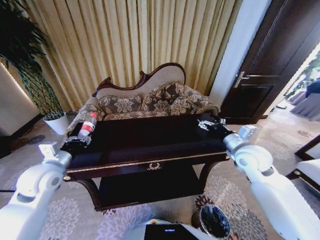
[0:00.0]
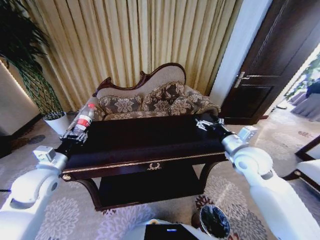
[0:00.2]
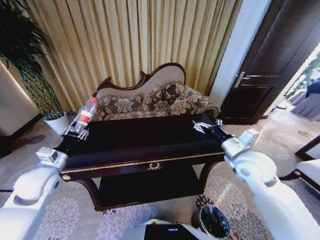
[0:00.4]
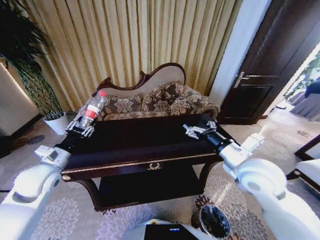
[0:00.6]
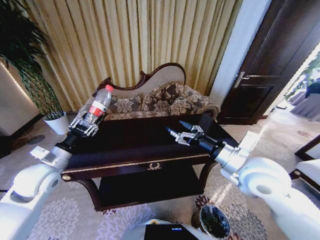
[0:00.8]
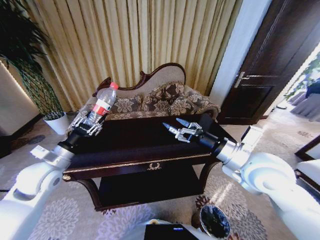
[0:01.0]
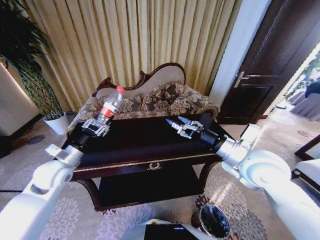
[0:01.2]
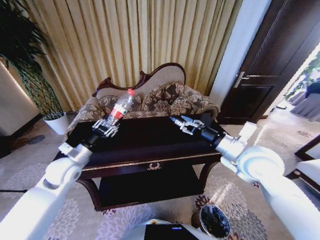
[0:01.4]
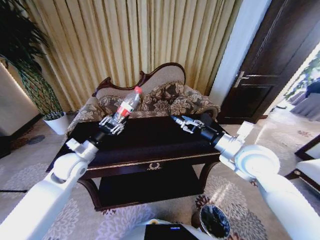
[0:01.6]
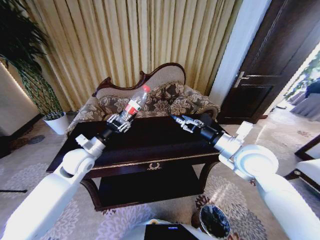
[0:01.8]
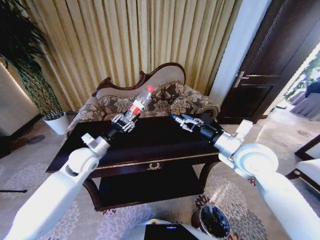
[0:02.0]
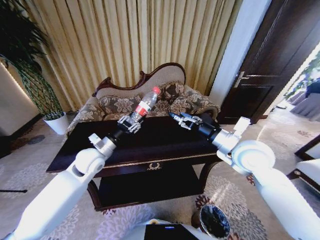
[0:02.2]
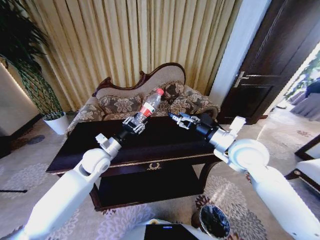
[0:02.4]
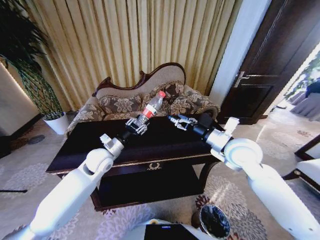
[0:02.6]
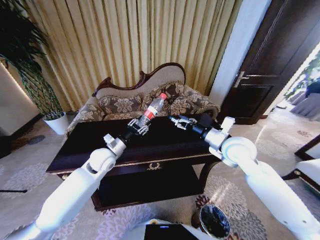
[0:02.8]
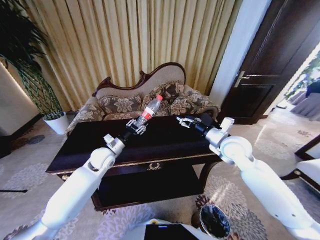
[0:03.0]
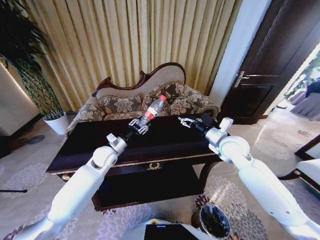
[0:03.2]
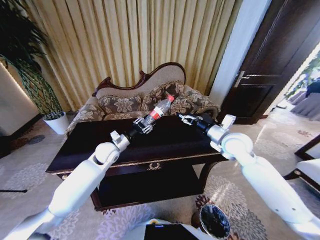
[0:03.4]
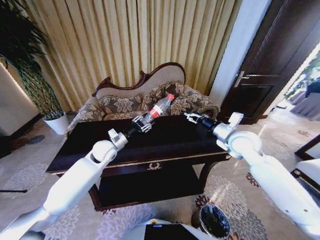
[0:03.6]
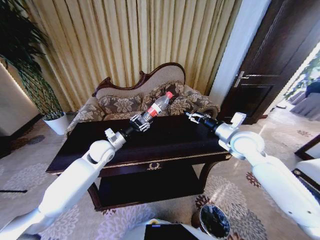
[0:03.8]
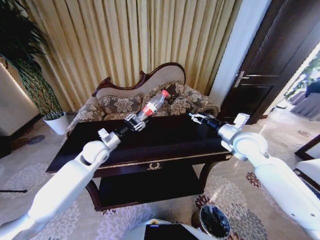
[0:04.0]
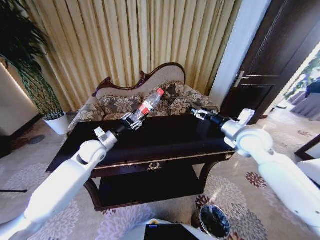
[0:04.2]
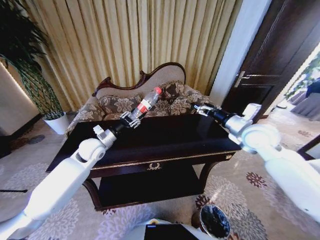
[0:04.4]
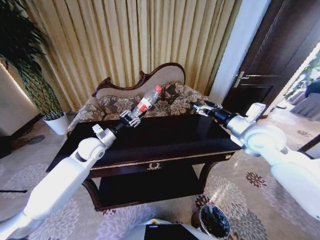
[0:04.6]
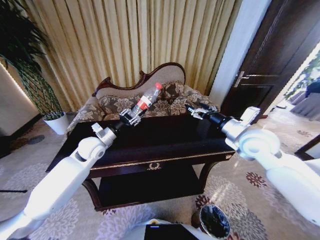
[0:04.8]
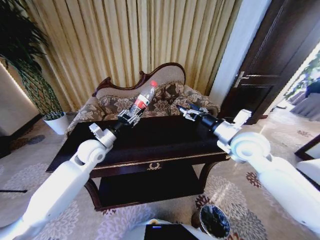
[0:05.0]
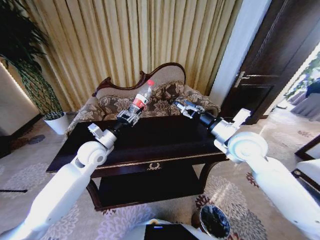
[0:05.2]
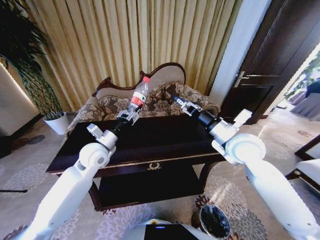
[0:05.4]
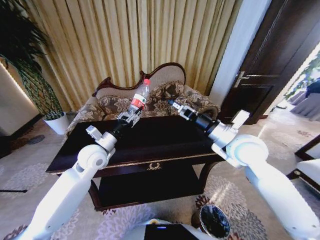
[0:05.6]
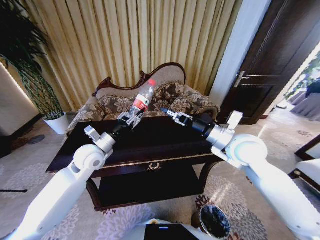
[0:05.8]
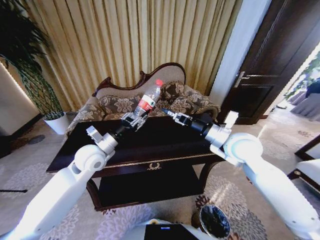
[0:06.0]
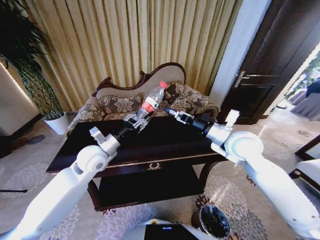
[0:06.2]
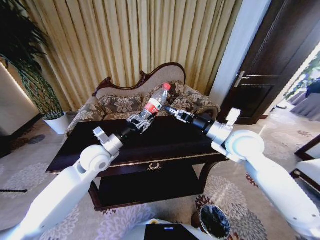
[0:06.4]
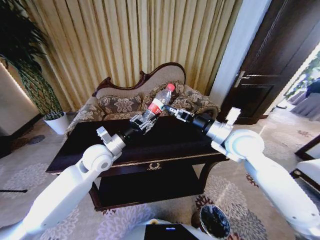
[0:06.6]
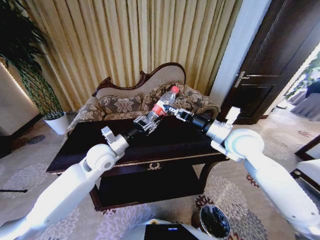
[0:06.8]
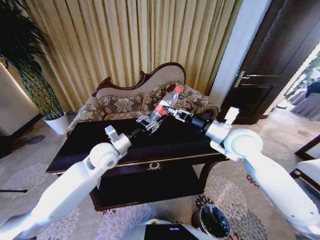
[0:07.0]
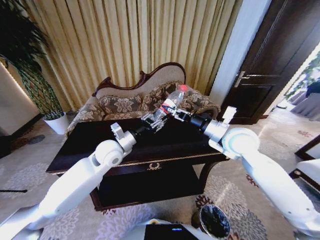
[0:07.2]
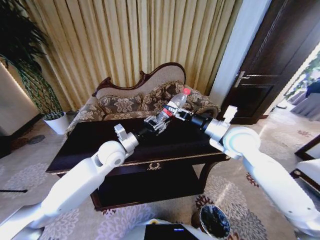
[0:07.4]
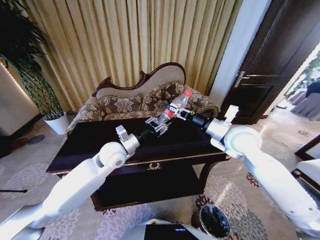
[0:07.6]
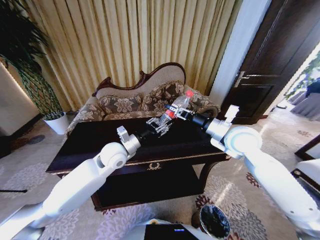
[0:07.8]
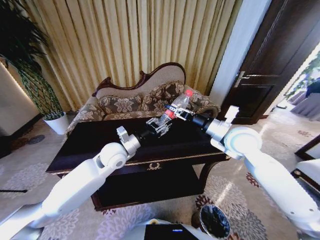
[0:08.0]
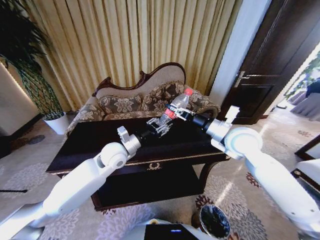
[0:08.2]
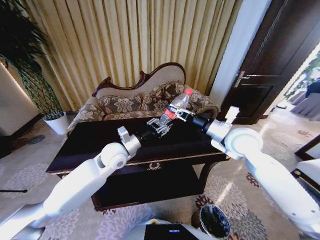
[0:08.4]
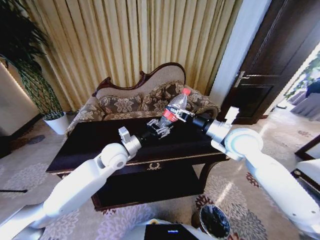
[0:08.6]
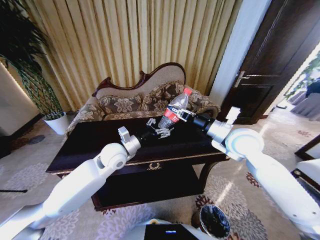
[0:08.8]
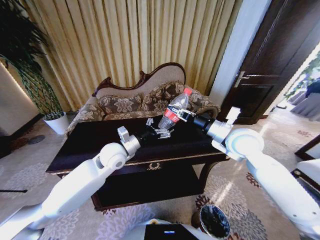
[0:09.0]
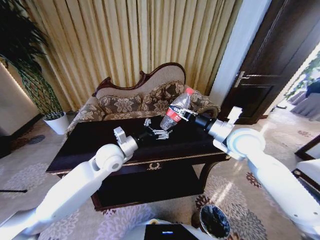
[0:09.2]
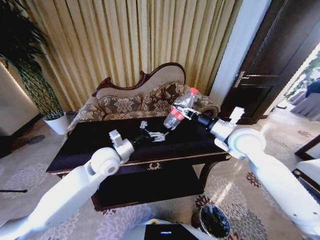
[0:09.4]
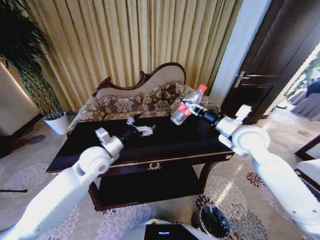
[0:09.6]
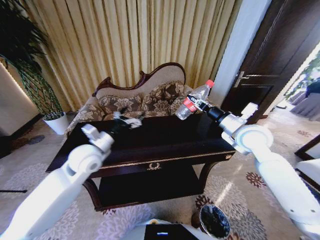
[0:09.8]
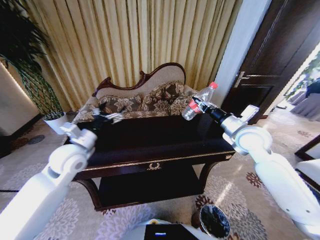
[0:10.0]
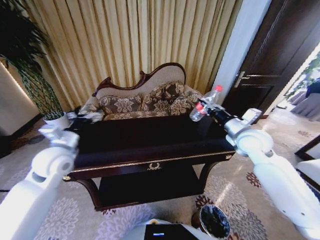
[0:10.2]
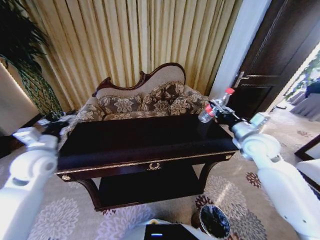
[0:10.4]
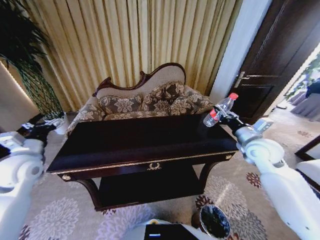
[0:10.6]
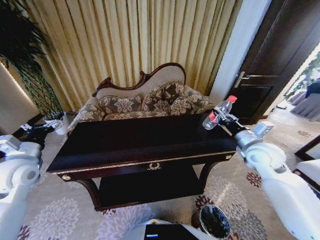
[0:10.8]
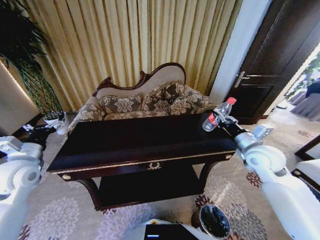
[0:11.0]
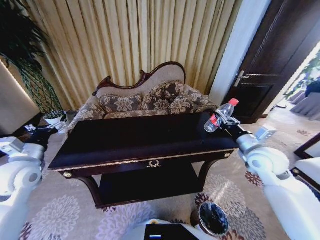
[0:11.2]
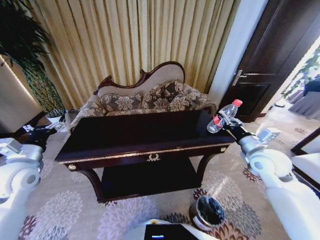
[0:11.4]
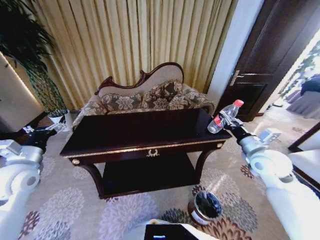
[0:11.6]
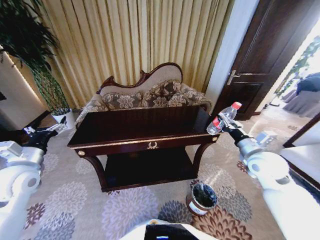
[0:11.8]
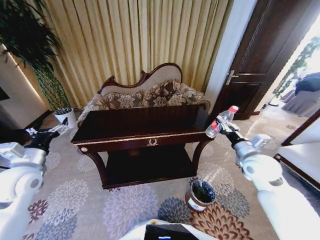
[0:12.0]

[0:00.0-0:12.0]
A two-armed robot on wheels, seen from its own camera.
Task of the whole recording: Move to the front of the table and place the trash on the table into the trash bin.
0:00.0 to 0:01.6: The right gripper travels to the left and upward by roughly 5 cm. Meanwhile the left gripper heads forward and to the right, covering some 10 cm.
0:01.6 to 0:03.0: The left gripper moves to the right and forward, about 10 cm. The right gripper goes some 10 cm forward.
0:03.0 to 0:04.4: The right gripper shifts about 10 cm upward and to the right. Meanwhile the left gripper ends up roughly 5 cm from where it was.
0:04.4 to 0:06.0: The right gripper goes roughly 10 cm to the left. The left gripper heads backward, covering roughly 5 cm.
0:06.0 to 0:07.6: The left gripper travels to the right by about 5 cm.
0:07.6 to 0:09.0: The left gripper opens up; the right gripper closes its fingers.
0:09.0 to 0:10.4: The right gripper travels to the right by about 10 cm; the left gripper moves to the left, approximately 25 cm.
0:10.4 to 0:12.0: The right gripper goes approximately 5 cm backward.

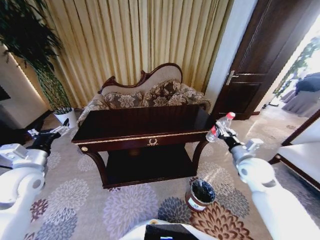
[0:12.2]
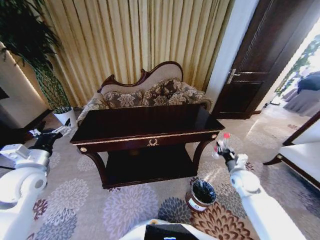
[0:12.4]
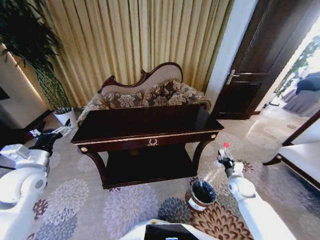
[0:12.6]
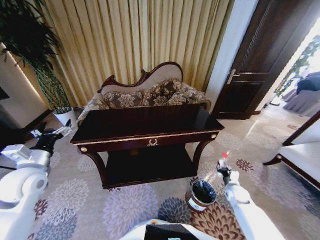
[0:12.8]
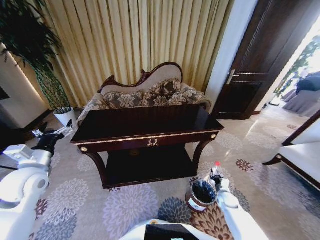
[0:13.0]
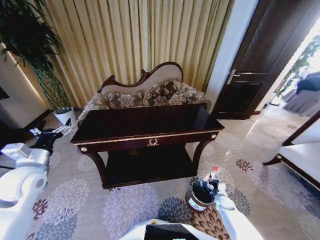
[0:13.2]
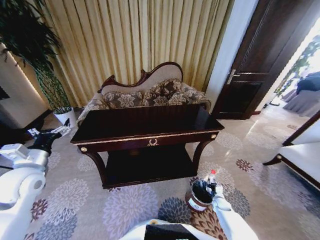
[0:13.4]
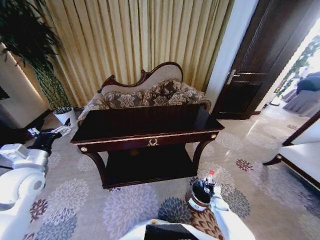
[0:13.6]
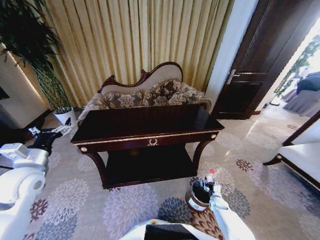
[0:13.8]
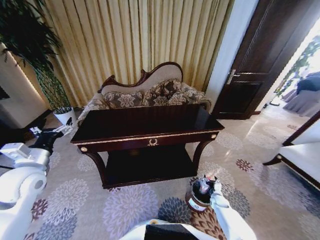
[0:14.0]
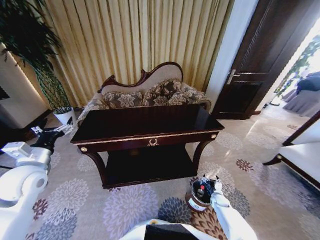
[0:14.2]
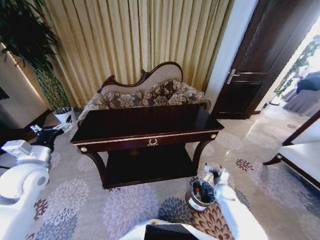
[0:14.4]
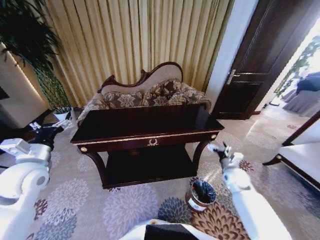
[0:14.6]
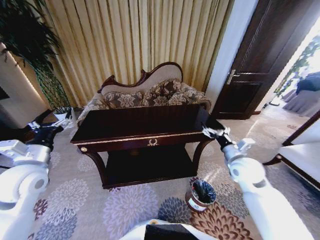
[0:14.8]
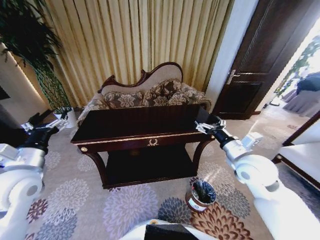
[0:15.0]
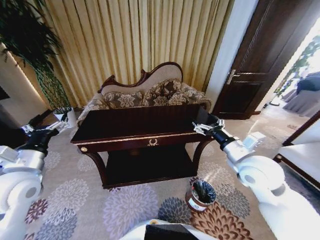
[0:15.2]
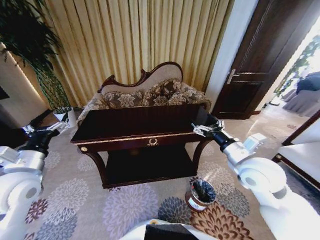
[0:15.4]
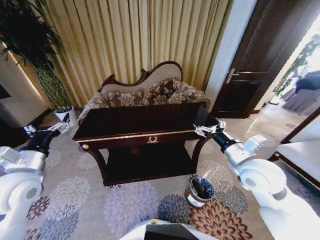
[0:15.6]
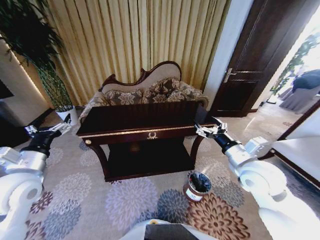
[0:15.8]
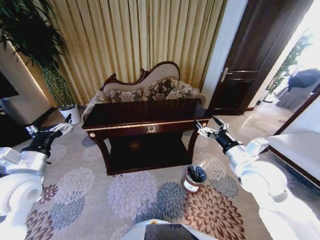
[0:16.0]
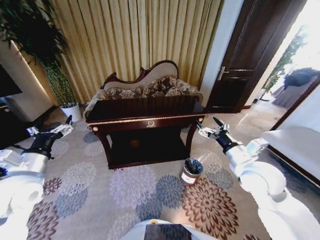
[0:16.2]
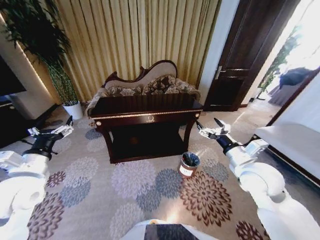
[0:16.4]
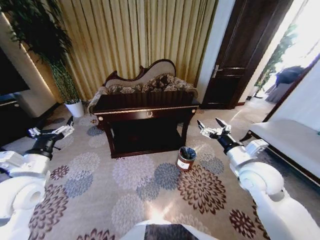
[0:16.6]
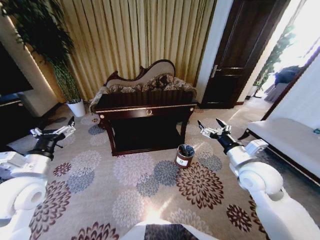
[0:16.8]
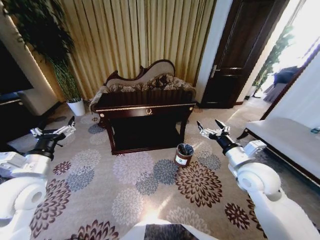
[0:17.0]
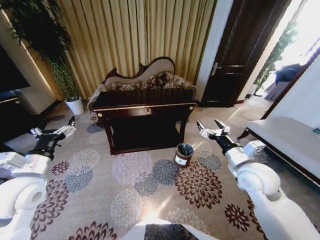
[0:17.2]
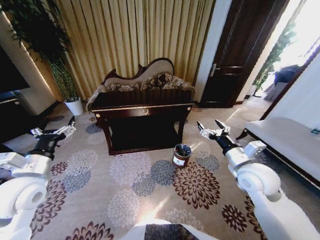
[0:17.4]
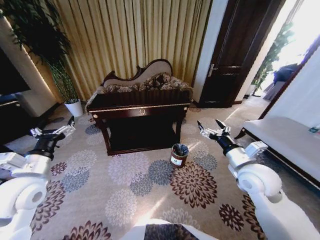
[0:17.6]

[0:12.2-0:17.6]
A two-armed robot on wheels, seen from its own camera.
Task of the whole recording: Move to the front of the table and place the trash on the table into the trash bin.
0:12.2 to 0:13.6: The right gripper is displaced downward by about 35 cm.
0:13.6 to 0:15.0: The right gripper is displaced upward by approximately 50 cm, and opens up.
